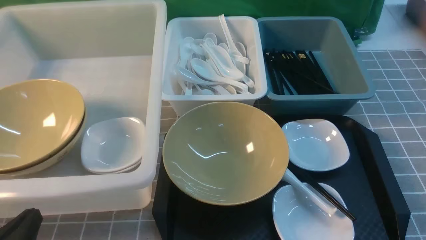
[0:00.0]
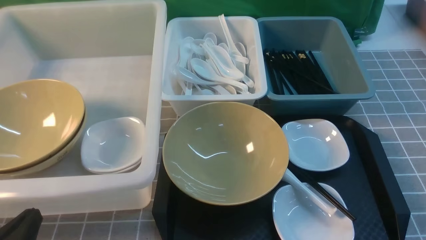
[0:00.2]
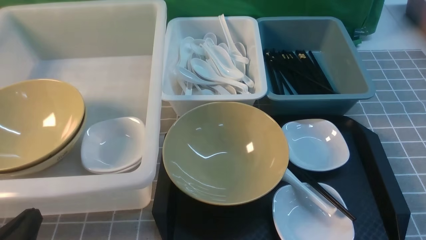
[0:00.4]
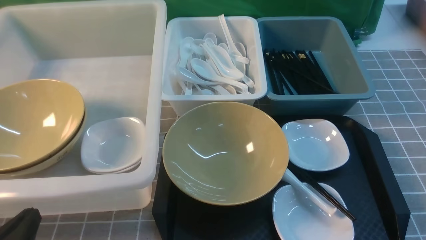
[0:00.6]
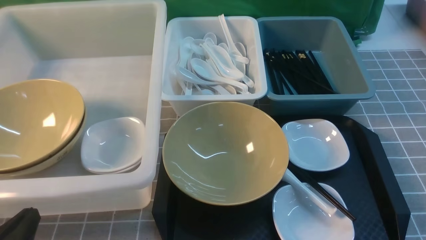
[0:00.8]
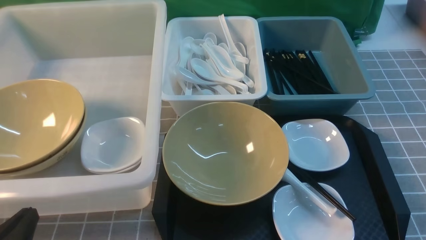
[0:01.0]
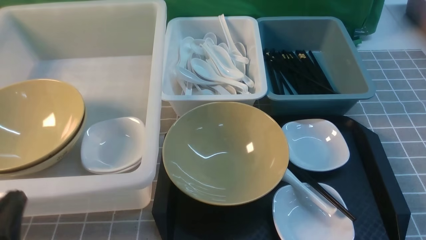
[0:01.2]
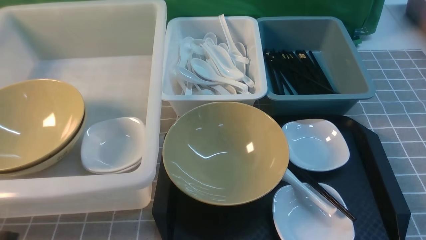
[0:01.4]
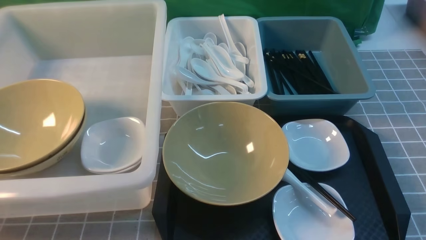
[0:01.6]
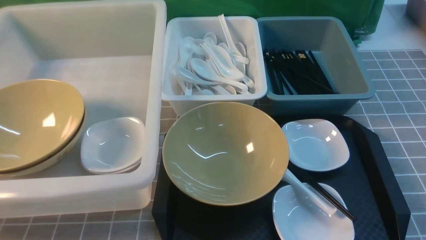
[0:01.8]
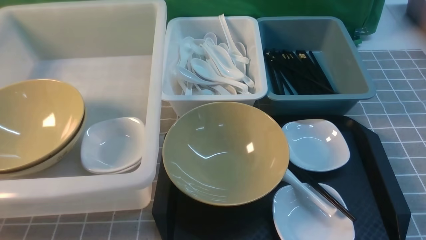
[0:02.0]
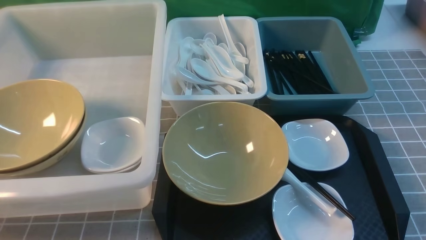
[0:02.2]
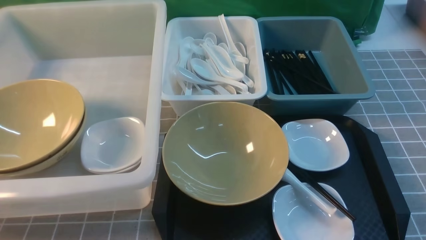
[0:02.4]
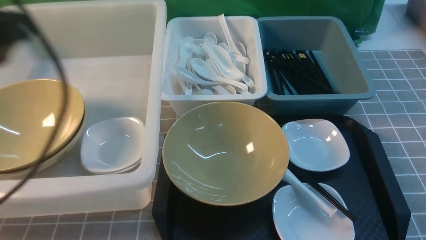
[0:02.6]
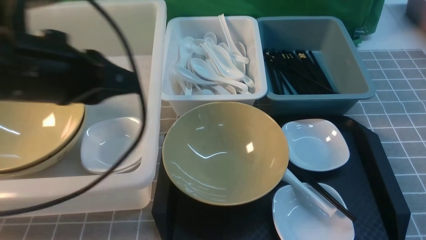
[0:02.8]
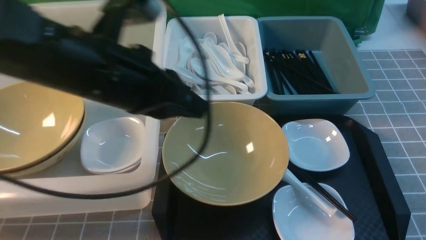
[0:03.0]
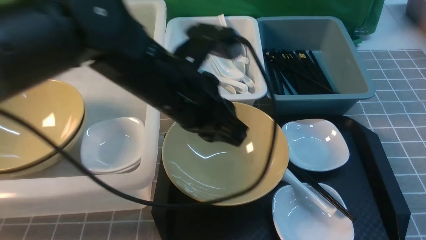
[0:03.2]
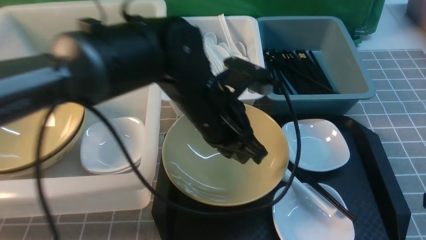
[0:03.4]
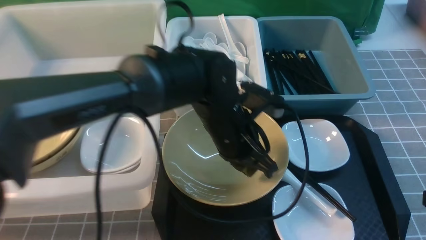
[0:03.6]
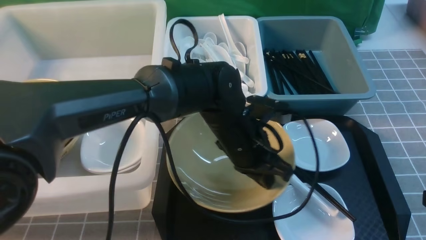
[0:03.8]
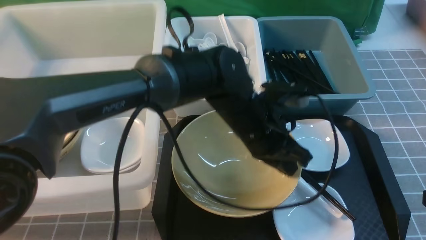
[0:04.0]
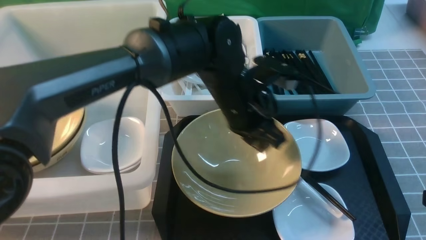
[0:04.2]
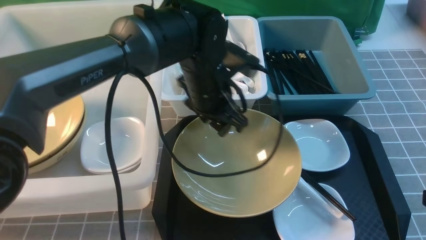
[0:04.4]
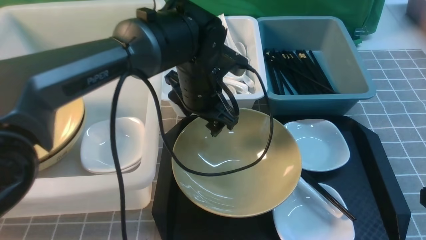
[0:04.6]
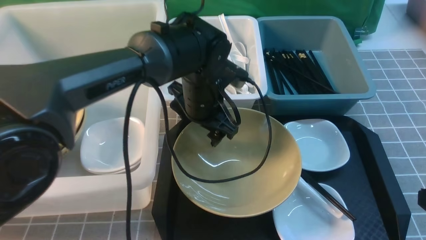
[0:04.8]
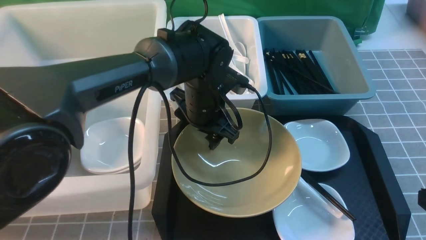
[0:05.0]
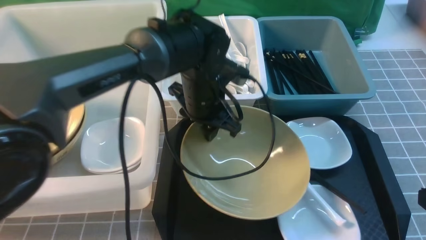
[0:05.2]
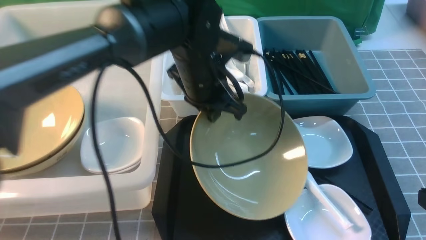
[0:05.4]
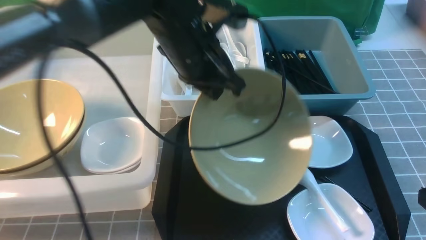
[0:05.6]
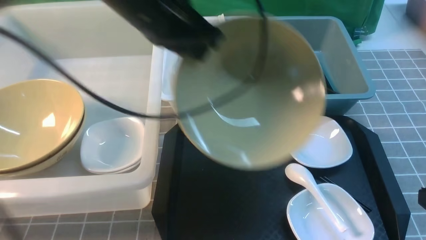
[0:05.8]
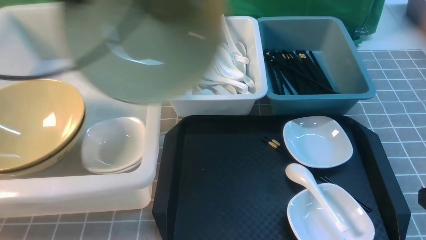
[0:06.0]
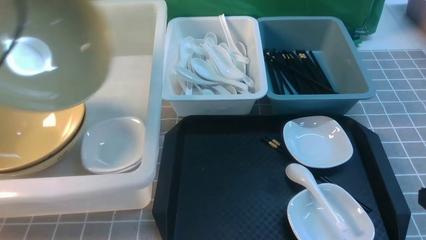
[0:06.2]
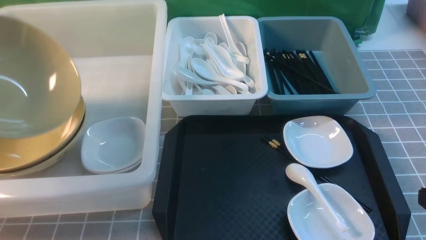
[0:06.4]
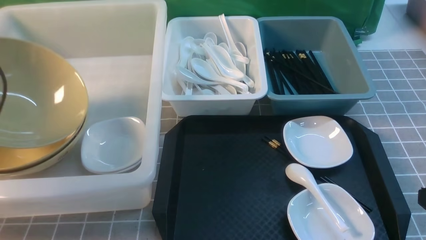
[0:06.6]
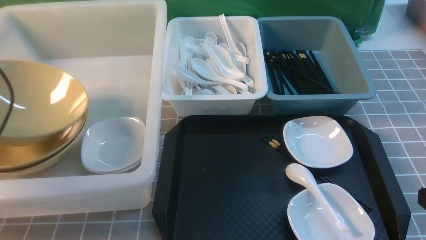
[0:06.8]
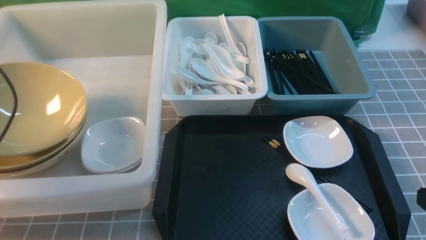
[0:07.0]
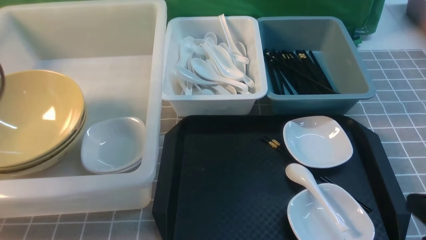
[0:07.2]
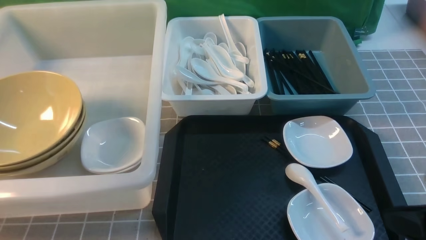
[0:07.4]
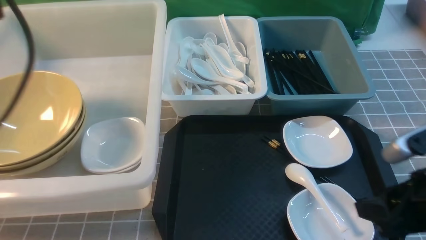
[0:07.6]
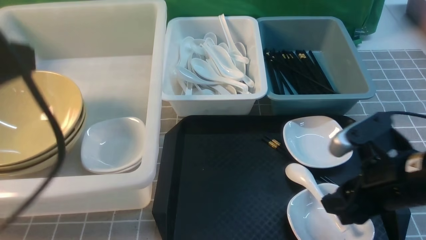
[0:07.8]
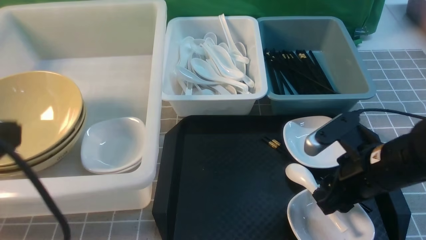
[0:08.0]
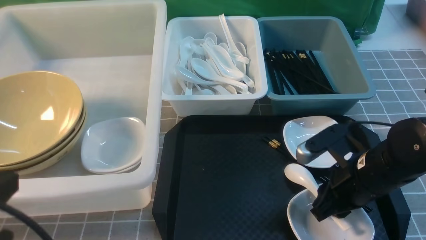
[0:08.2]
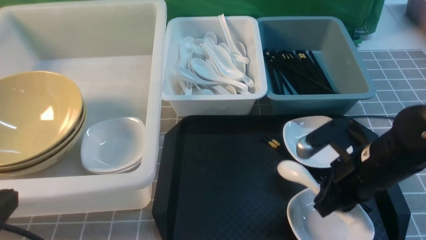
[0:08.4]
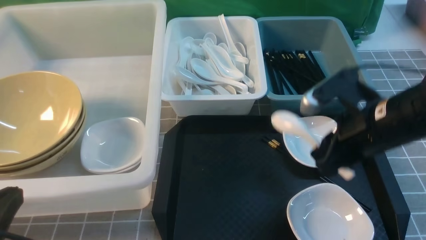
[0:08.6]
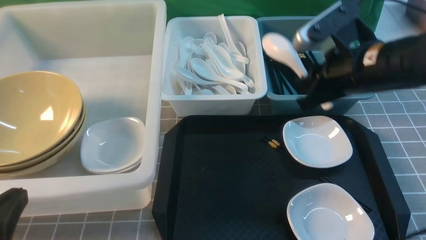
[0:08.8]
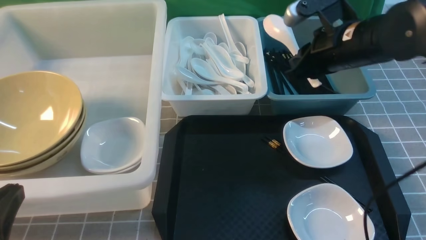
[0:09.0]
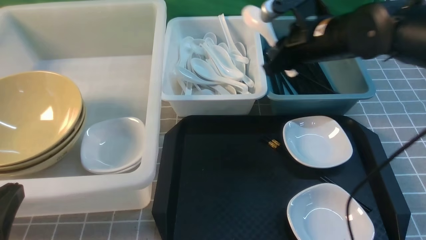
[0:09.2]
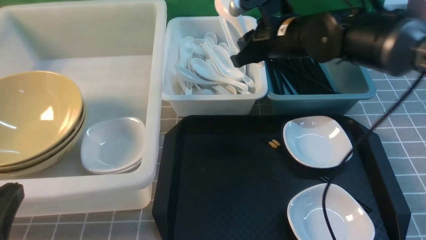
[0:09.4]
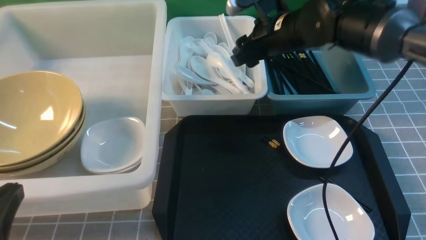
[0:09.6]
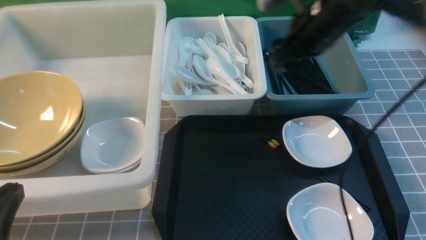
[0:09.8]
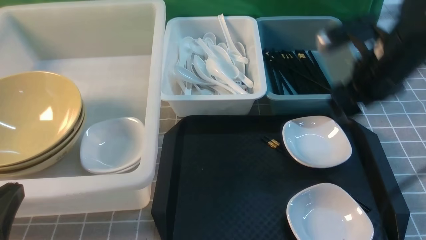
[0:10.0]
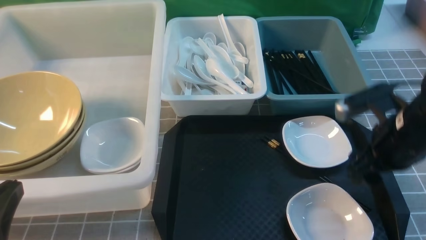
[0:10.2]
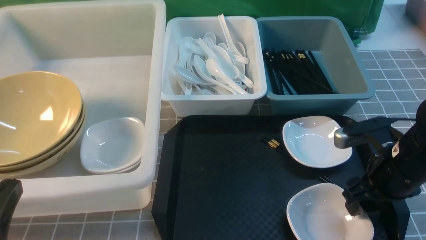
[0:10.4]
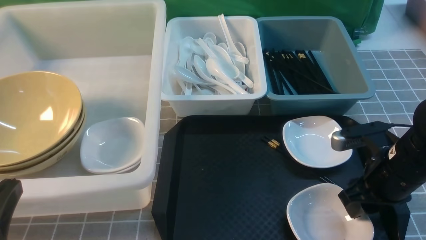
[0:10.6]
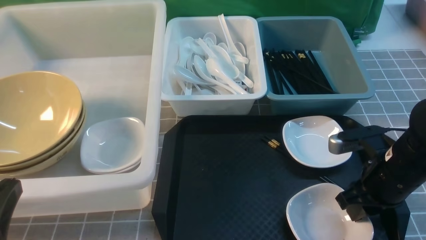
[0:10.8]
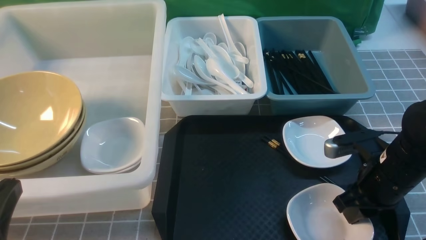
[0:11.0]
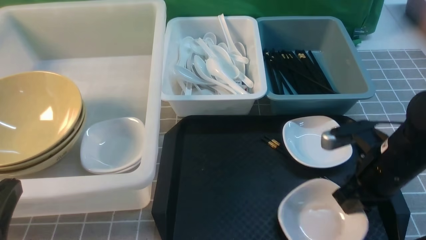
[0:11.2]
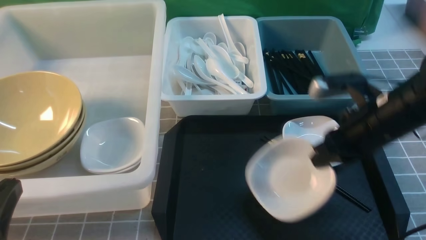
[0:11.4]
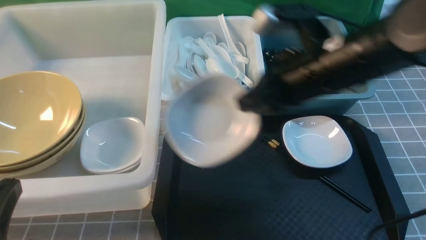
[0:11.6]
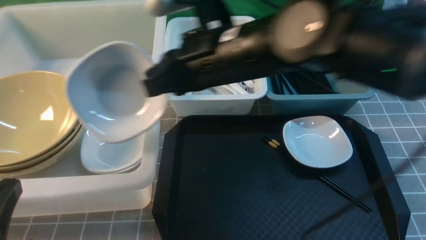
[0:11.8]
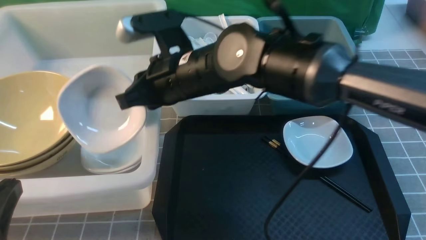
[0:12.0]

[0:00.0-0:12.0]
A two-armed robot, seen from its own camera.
Task of the whole recording: on grey table put chopsticks spoon bowls plates into blue grey white boxes.
Step, 0.0 to 5.2 s: use the left arm to grab the yellow noodle bowl on the left.
Step, 5.4 to 7.2 s: use the left arm to put the noodle bowl into the large storage box on the left.
Step, 7.4 to 8.4 s: use the right arm to grab the soup spoon in the middle.
Step, 8.8 to 9.8 s: use the right arm to put the soup spoon into the small storage box in the middle.
Step, 10.0 to 11.2 s: use the right arm to grab the plate.
0.0 to 1.6 s: The left gripper travels upward by roughly 10 cm.
1.6 to 3.0 s: The left gripper is displaced forward, to the right and upward by about 25 cm; the right gripper is displaced forward by roughly 5 cm, reaches roughly 10 cm upward, then returns, and closes.
3.0 to 4.4 s: The left gripper is displaced to the right, forward and downward by approximately 15 cm, and opens its fingers.
4.4 to 6.0 s: The left gripper heads to the left and upward, covering roughly 30 cm, and closes its fingers.
6.0 to 7.6 s: The right gripper is displaced forward by roughly 5 cm, and opens. Meanwhile the left gripper shifts approximately 15 cm backward, goes to the left and returns, roughly 15 cm each way, and opens its fingers.
7.6 to 9.0 s: The left gripper is displaced downward and backward by some 20 cm, and closes. Meanwhile the right gripper travels forward by about 20 cm.
9.0 to 10.4 s: The right gripper travels backward, downward and to the right by about 20 cm, and opens up.
10.4 to 12.0 s: The right gripper goes approximately 25 cm to the left, and closes its fingers.

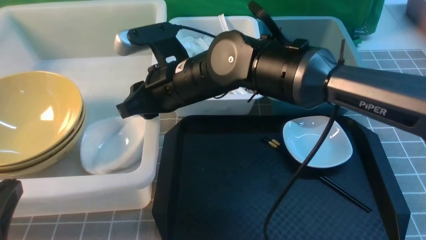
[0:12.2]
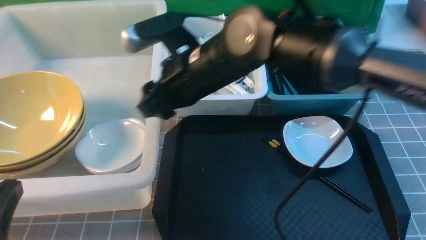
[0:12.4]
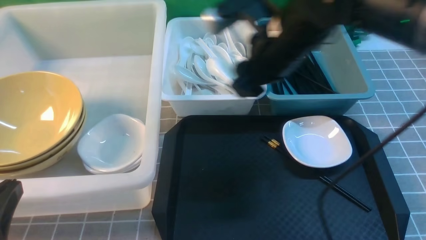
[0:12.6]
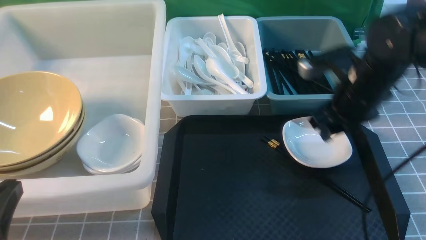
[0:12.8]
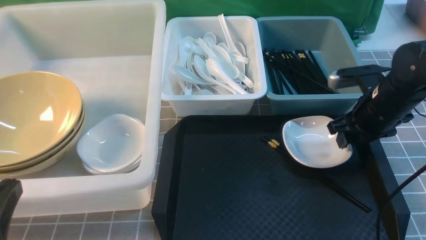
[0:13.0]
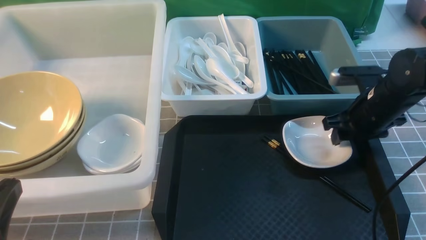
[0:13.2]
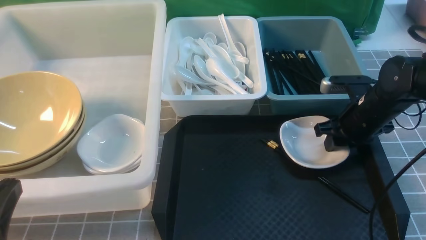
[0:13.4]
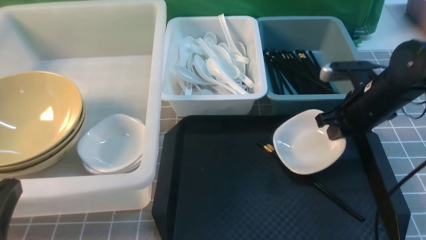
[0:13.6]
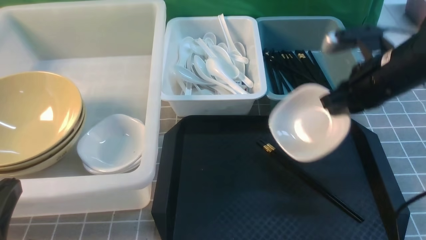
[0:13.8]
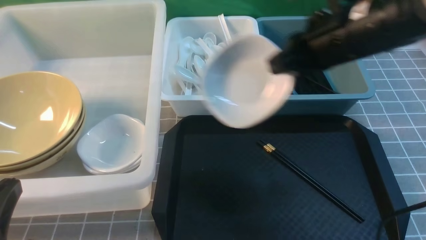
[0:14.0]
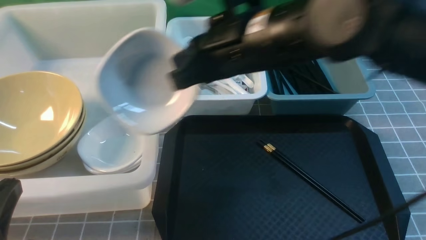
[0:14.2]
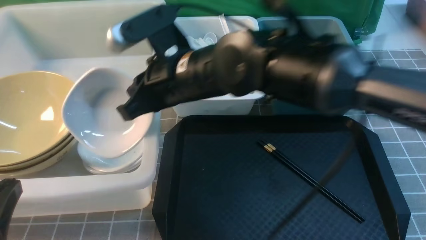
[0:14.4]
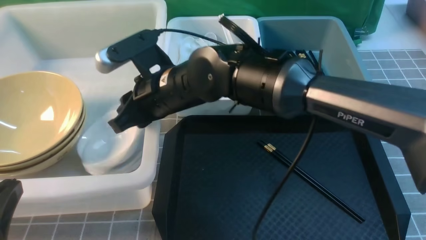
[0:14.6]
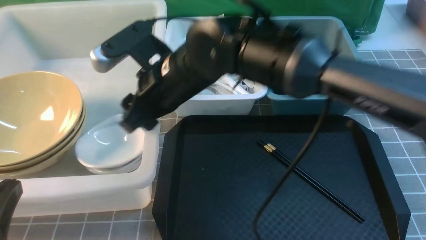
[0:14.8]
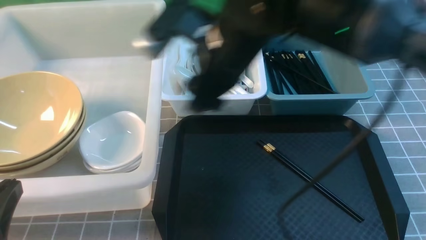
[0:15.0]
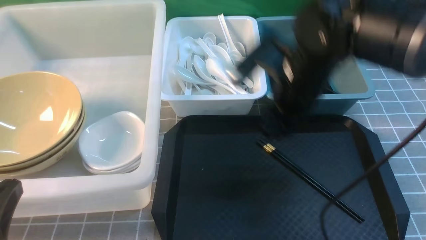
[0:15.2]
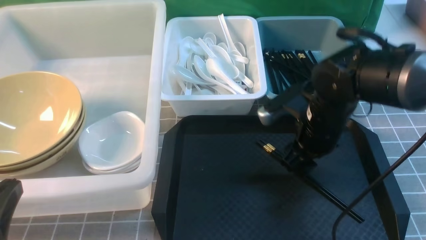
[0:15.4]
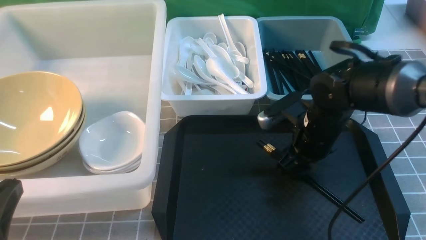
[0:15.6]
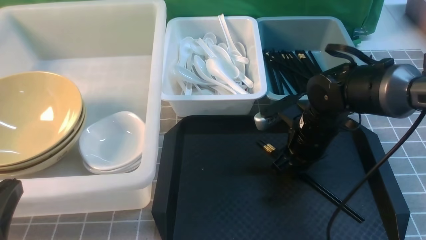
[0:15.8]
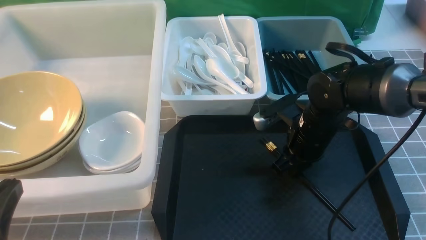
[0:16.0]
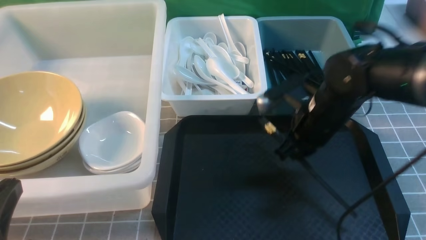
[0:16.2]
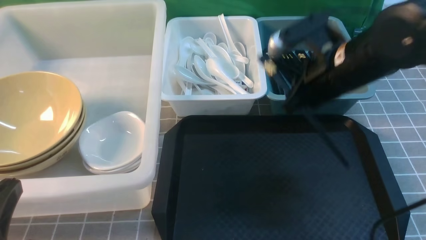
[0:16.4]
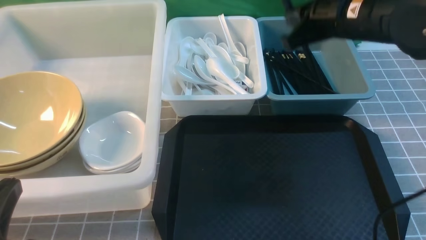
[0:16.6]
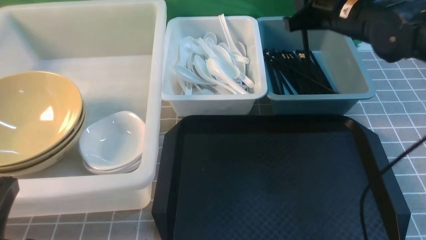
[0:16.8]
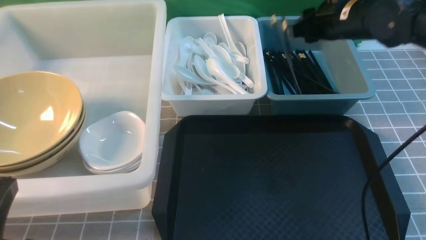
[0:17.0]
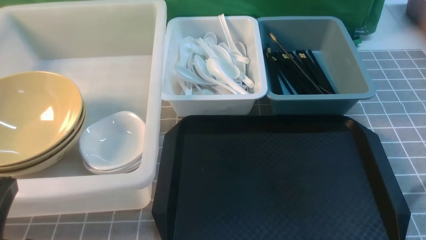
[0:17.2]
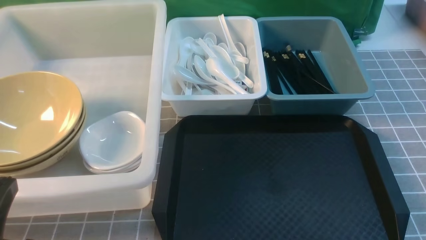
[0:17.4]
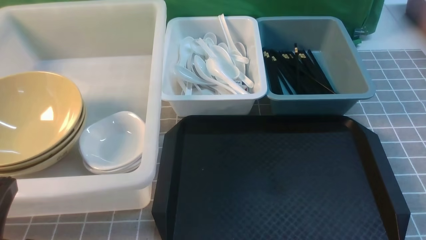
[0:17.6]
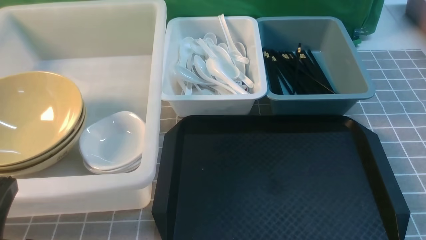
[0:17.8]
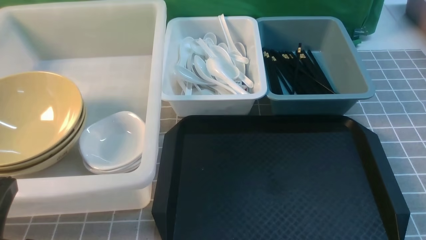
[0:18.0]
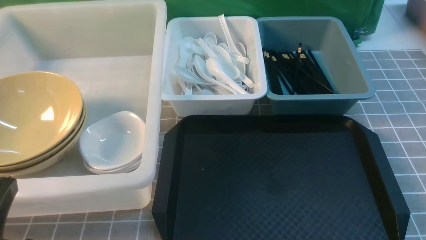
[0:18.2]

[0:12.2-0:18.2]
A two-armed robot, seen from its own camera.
Task of the whole recording: on grey table put chopsticks spoon bowls plates into blue grey white boxes.
Step, 12.4 to 13.6 s: use the right arm to grab the plate.
Step, 13.8 to 14.6 s: use the right arm to put the plate into the large storage box on the left.
Step, 14.8 to 16.2 s: use the right arm to grab the chopsticks.
Step, 16.4 to 17.0 s: use the right arm to put the chopsticks into the small storage box on the right.
12.2 to 13.8 s: The right gripper shifts about 20 cm to the right, and closes up.
13.8 to 15.2 s: The right gripper goes approximately 10 cm to the left, and opens its fingers.
15.2 to 16.6 s: The right gripper goes approximately 10 cm to the right and upward, and closes its fingers.
16.6 to 18.2 s: The right gripper heads backward, covering roughly 30 cm.
